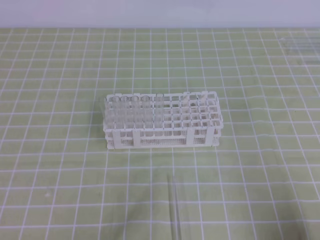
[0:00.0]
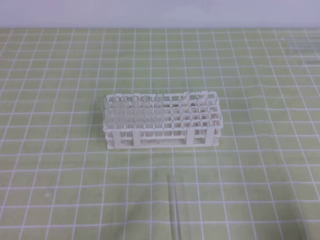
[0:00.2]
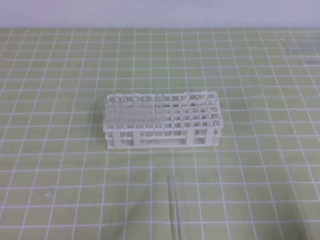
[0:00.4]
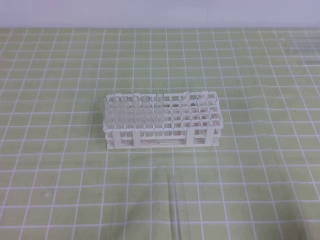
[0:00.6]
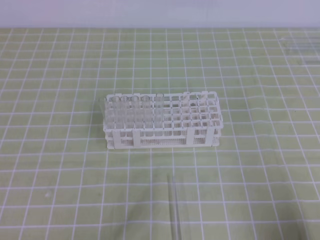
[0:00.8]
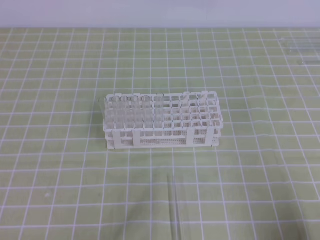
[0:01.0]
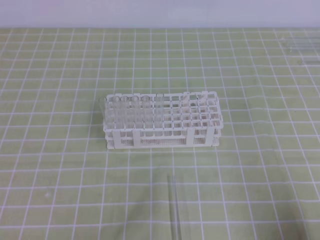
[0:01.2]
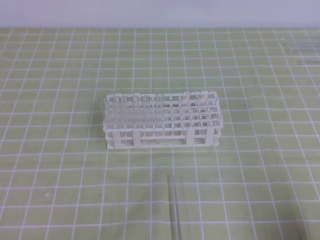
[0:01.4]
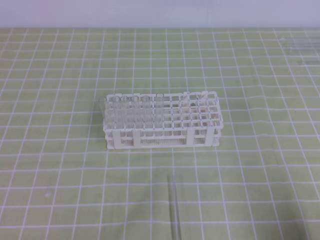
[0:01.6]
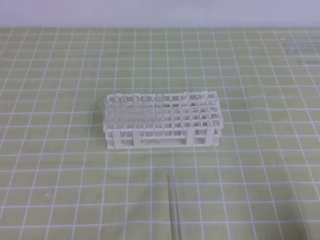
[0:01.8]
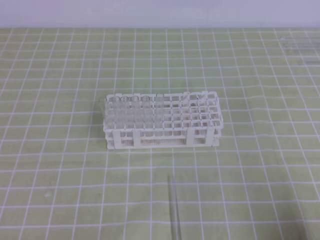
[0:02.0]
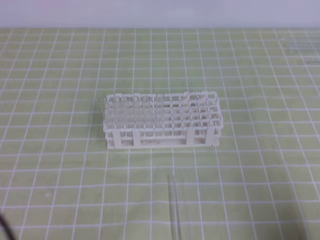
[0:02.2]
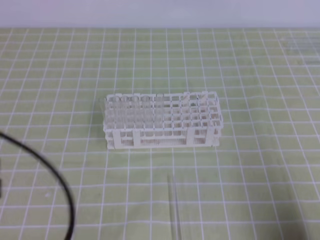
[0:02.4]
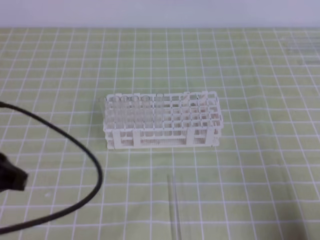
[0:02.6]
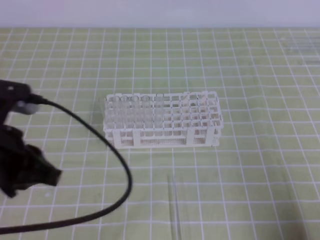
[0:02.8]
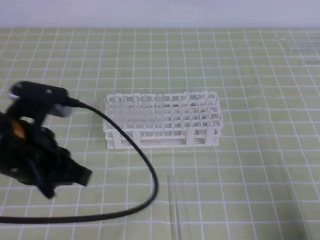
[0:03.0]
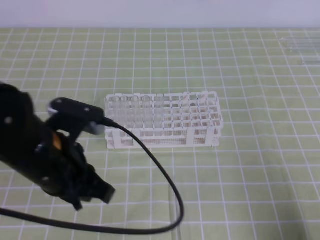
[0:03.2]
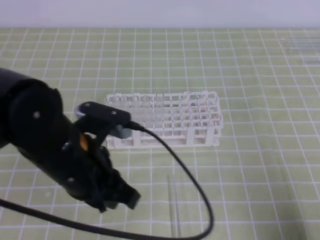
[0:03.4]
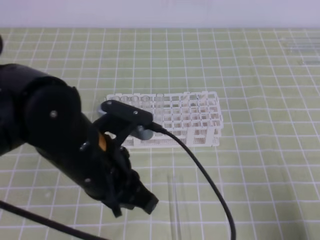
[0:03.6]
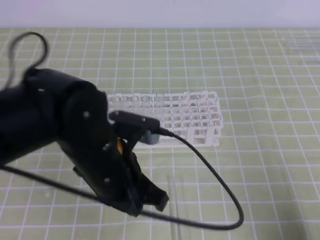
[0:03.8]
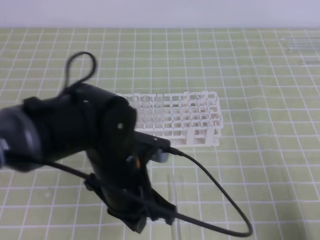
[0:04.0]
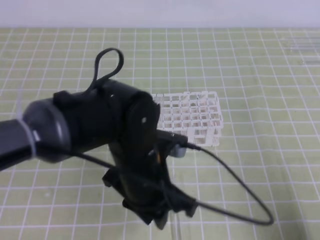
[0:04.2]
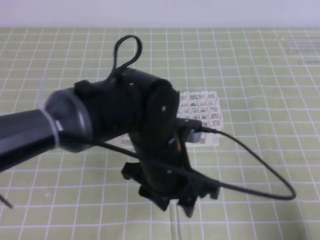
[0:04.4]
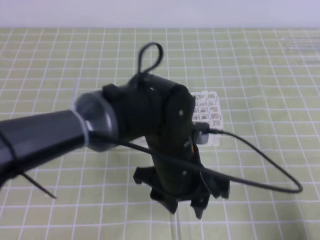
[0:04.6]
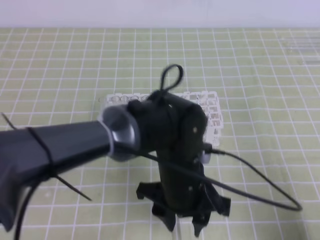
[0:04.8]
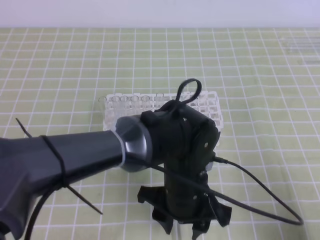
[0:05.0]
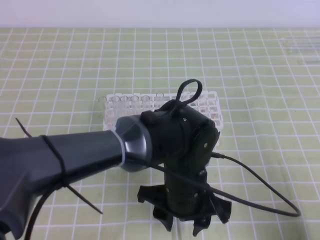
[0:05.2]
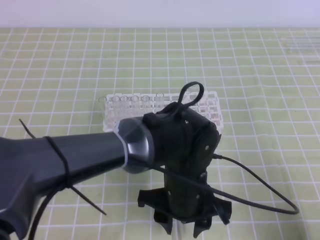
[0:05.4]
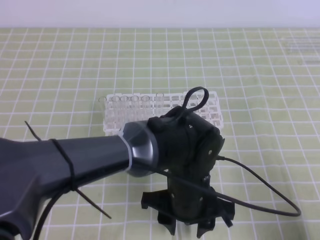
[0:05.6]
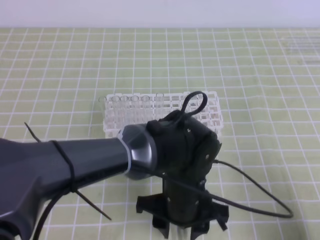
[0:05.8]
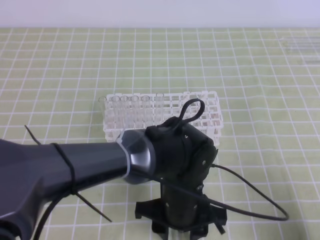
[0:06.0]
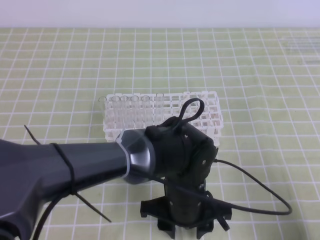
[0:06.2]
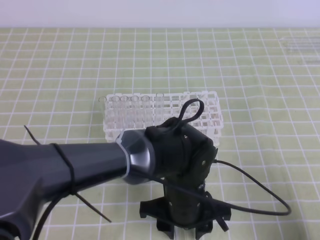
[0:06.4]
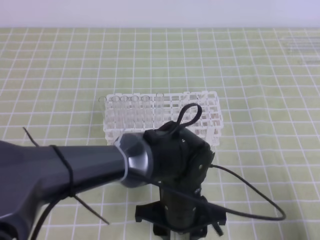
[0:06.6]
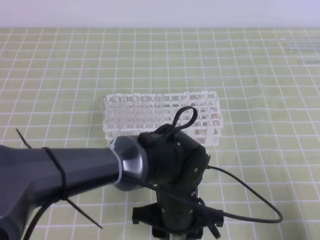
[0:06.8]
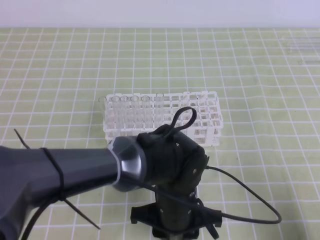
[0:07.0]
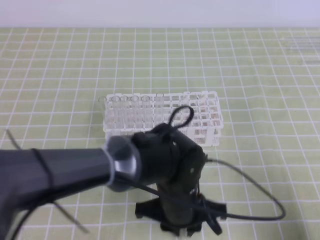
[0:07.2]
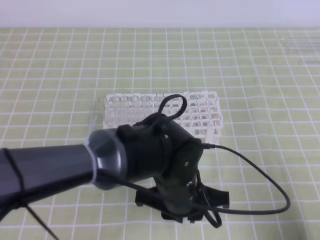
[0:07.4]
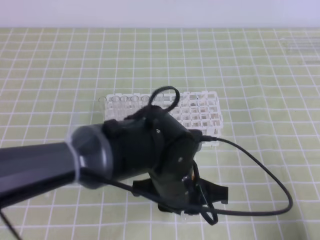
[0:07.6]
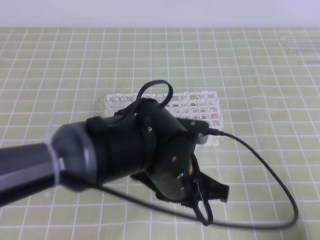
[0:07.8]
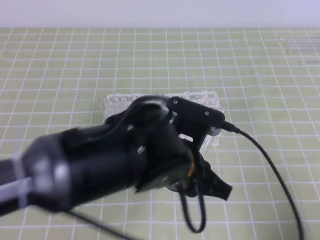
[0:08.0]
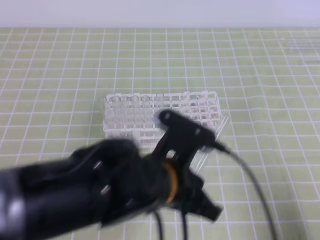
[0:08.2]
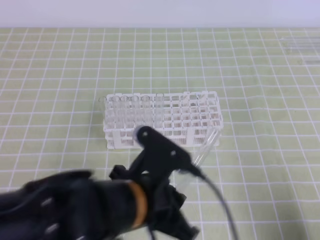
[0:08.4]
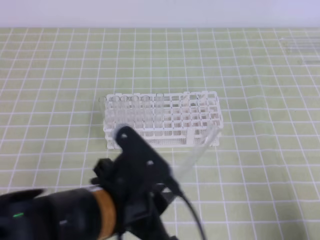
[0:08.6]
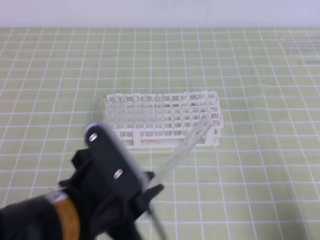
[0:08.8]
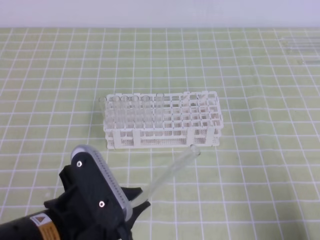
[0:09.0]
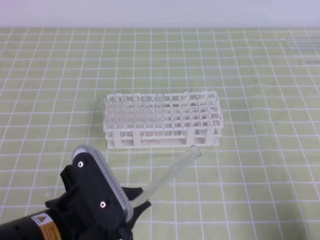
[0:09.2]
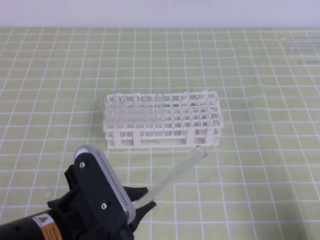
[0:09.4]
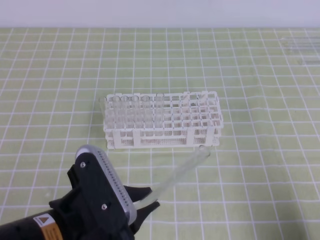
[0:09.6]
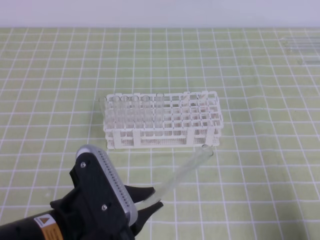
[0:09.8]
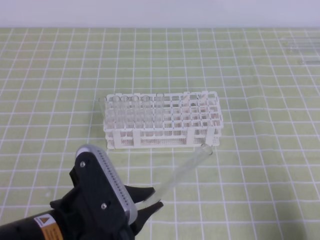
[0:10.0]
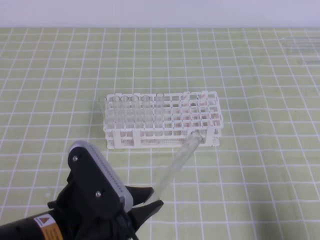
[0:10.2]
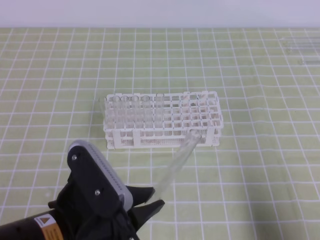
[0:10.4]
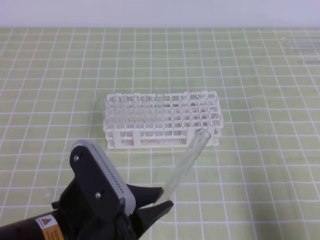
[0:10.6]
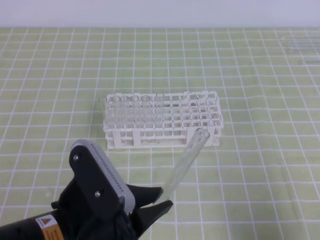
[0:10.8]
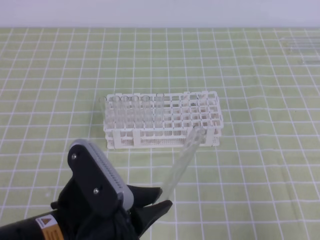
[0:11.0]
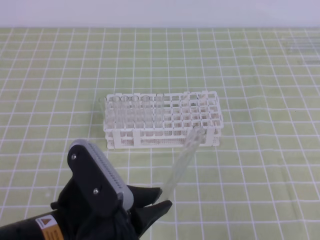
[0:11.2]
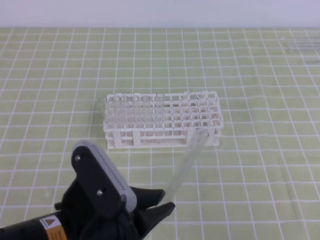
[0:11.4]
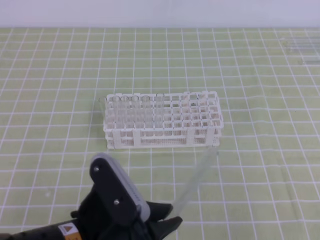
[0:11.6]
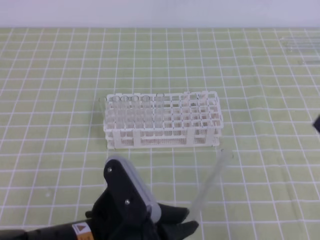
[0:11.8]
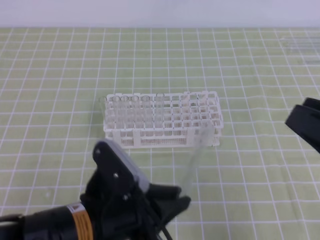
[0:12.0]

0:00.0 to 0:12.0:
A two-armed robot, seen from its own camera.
0:01.6 to 0:03.0: The left gripper shifts some 20 cm forward, to the right and upward.
0:03.0 to 0:04.4: The left gripper is displaced to the right by roughly 15 cm, and opens.
0:04.4 to 0:06.0: The left gripper goes some 5 cm downward.
0:06.0 to 0:07.6: The left gripper closes.
0:07.6 to 0:09.0: The left gripper goes roughly 15 cm to the left and backward.
0:10.4 to 0:12.0: The right gripper moves upward, to the left and forward, roughly 15 cm, and opens up.

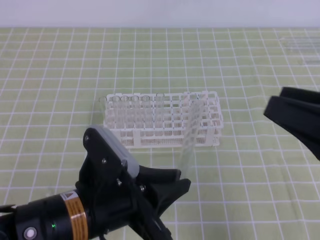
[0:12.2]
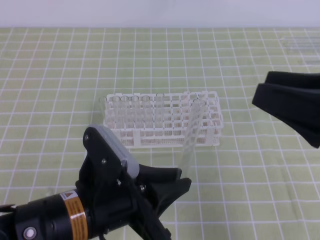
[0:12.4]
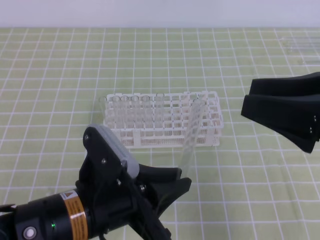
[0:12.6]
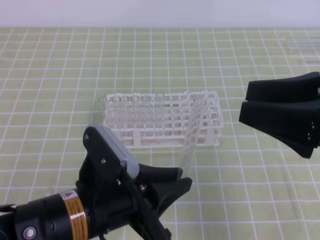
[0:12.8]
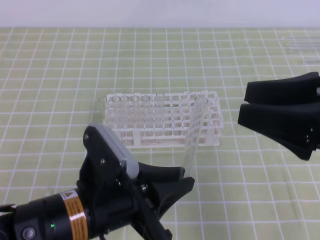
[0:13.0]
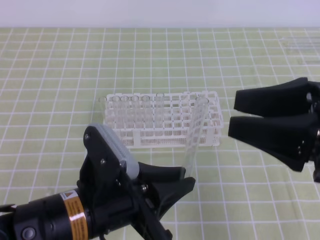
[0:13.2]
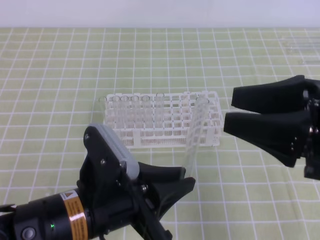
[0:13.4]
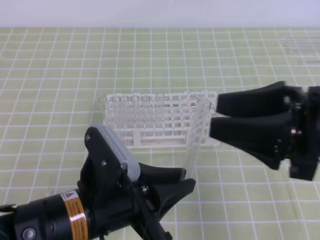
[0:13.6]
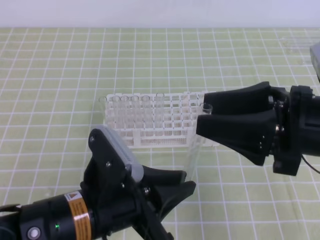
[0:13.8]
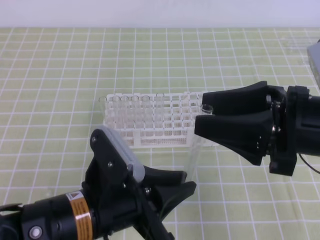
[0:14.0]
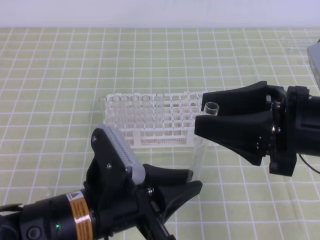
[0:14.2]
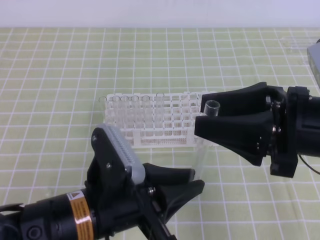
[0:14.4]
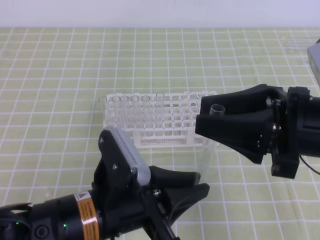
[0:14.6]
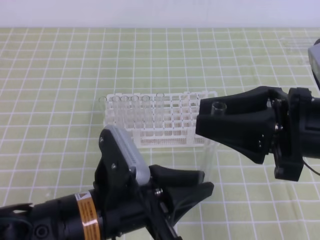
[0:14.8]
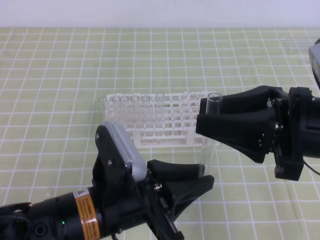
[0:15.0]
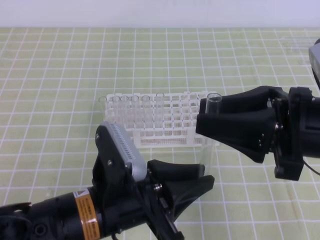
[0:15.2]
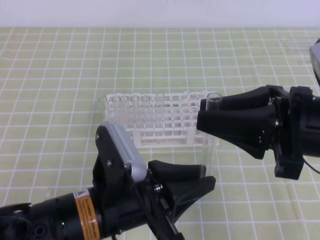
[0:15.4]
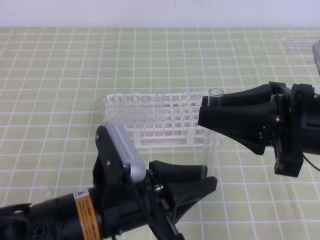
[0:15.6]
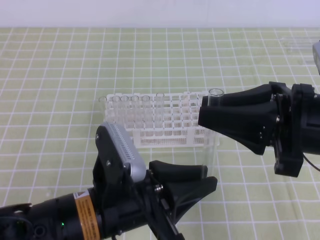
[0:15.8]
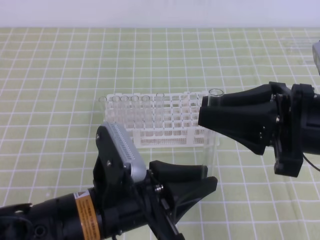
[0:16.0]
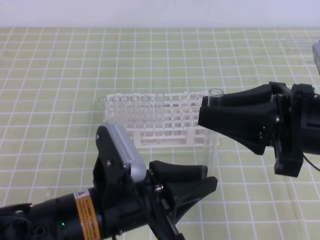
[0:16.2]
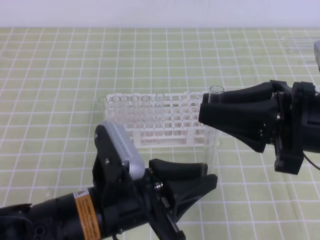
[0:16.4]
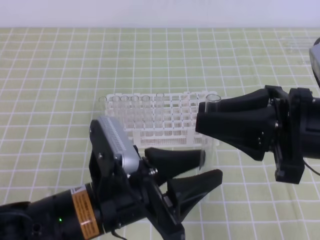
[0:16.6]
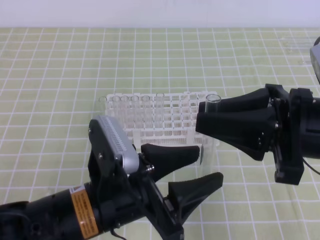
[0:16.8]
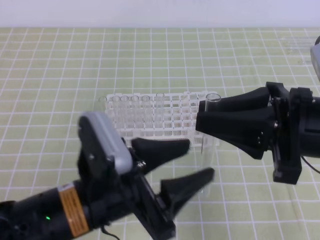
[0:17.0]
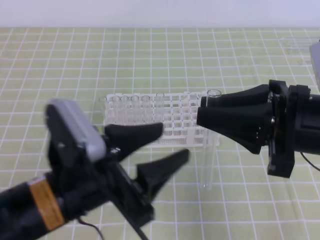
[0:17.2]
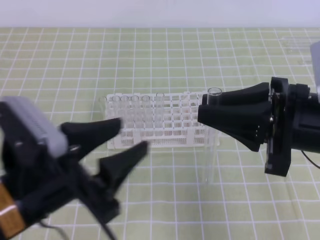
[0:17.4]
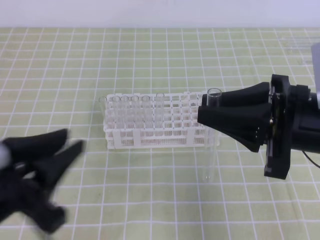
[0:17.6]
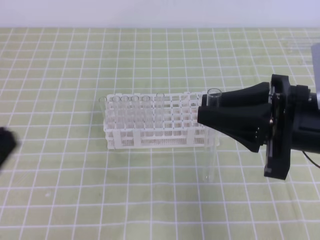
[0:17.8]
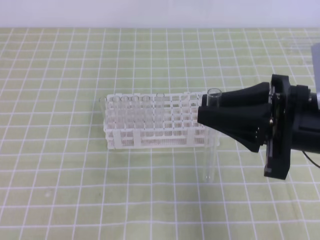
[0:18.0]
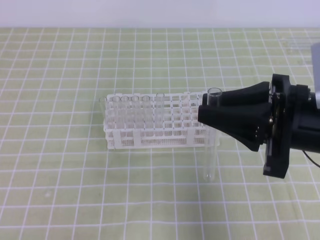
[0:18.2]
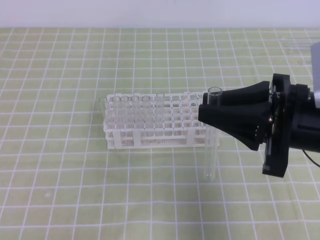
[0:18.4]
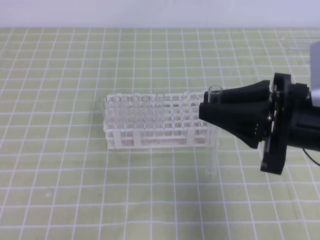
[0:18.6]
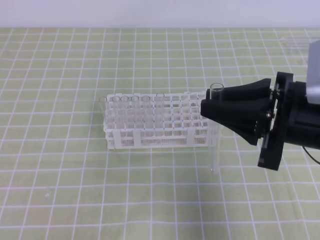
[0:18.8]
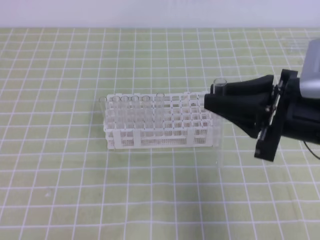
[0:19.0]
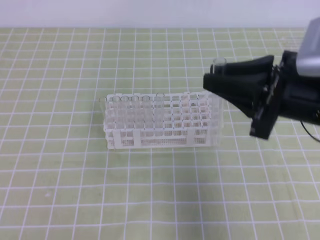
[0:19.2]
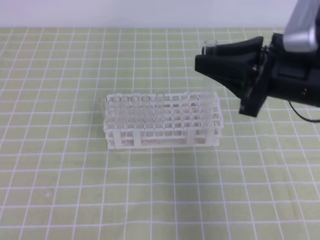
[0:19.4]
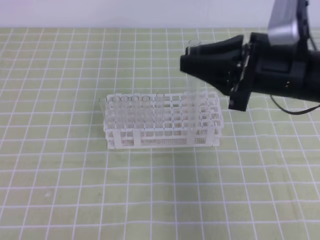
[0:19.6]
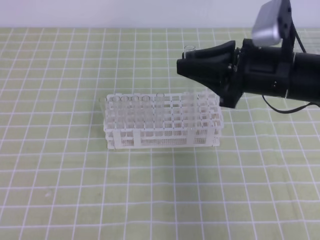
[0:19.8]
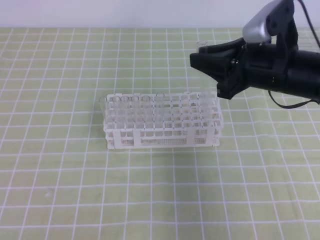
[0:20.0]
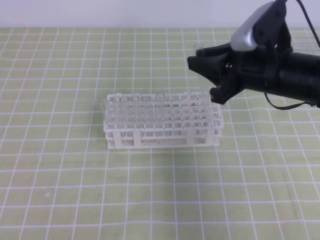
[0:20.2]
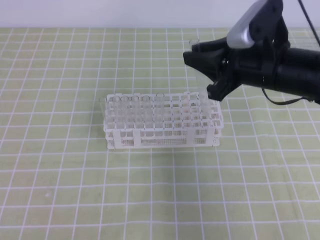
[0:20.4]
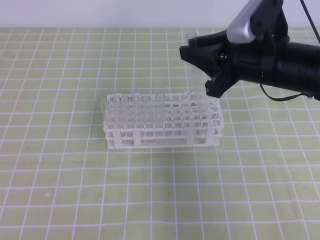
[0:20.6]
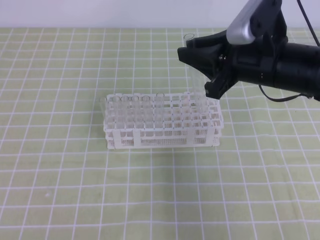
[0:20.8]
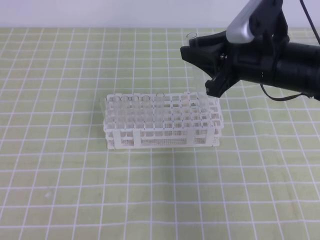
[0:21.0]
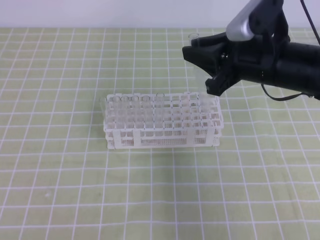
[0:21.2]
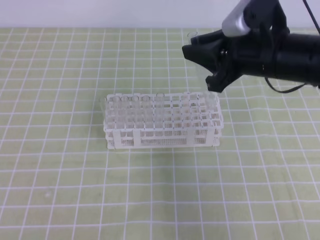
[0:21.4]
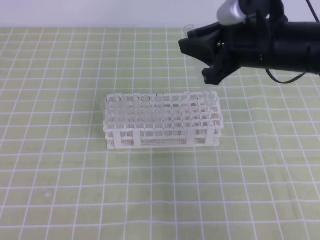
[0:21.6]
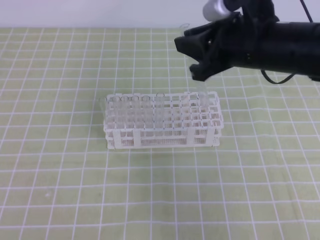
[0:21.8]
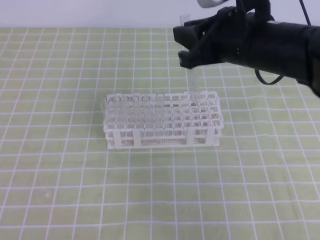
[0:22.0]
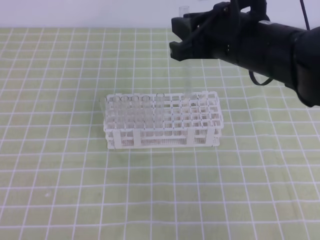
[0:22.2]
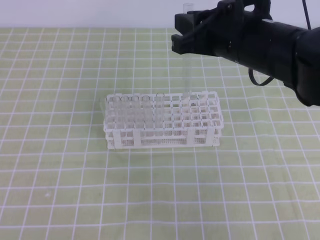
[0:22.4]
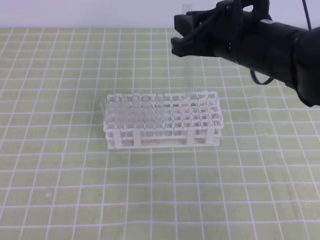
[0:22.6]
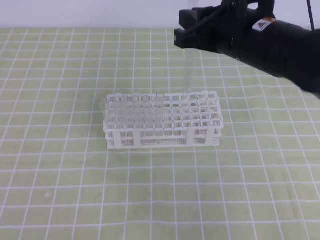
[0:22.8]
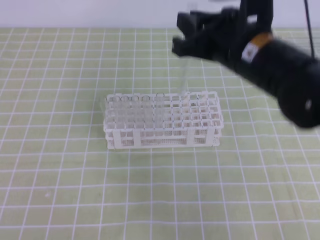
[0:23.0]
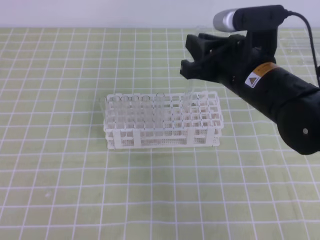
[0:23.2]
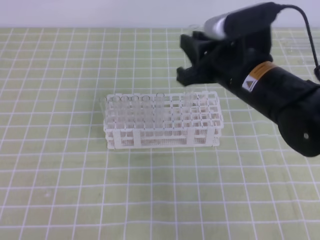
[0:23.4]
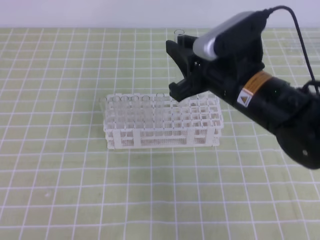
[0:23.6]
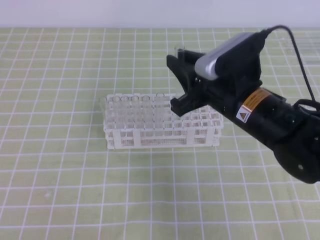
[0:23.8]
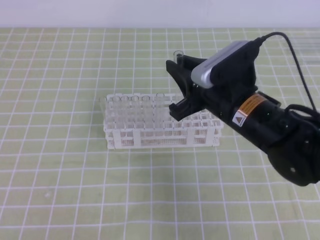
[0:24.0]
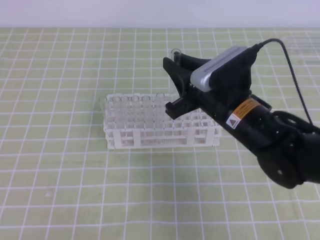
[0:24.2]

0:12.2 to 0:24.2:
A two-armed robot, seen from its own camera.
0:12.2 to 0:13.8: The right gripper heads to the left, covering roughly 5 cm.
0:13.8 to 0:15.2: The right gripper closes up.
0:15.2 to 0:16.6: The left gripper opens.
0:16.6 to 0:18.2: The left gripper heads to the left, covering approximately 20 cm, and closes.
0:18.2 to 0:19.8: The right gripper is displaced forward by some 10 cm.
0:19.8 to 0:21.2: There are only small adjustments of the grippers.
0:21.2 to 0:22.6: The right gripper changes place by some 5 cm.
0:22.6 to 0:24.2: The right gripper moves downward, approximately 10 cm.
